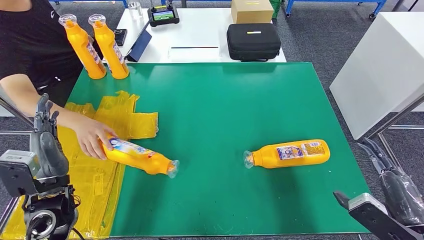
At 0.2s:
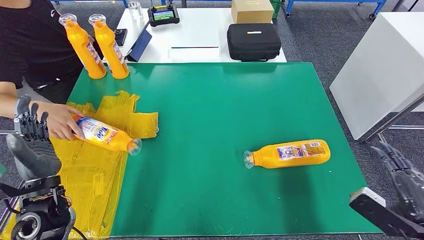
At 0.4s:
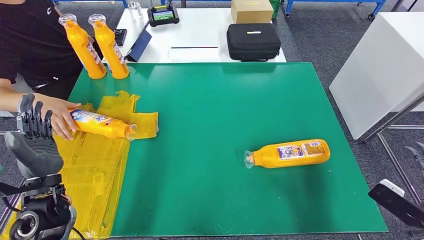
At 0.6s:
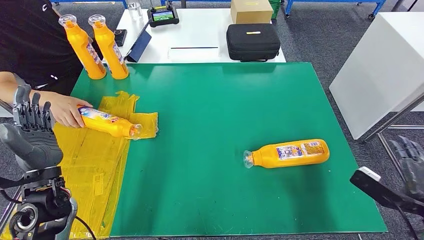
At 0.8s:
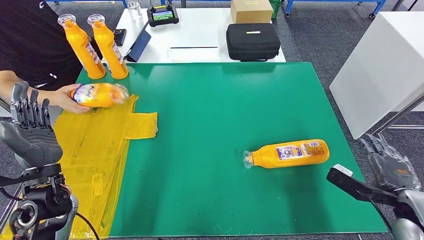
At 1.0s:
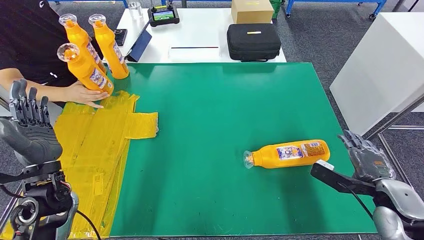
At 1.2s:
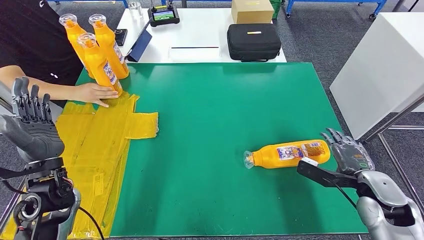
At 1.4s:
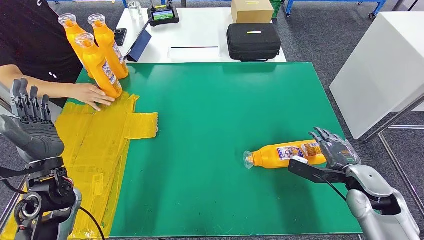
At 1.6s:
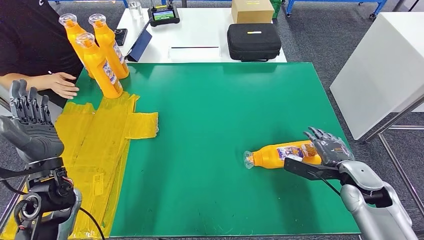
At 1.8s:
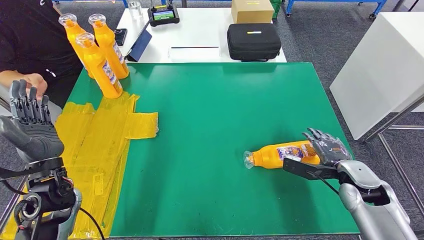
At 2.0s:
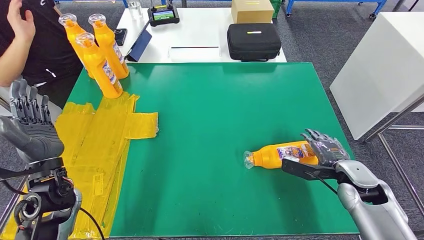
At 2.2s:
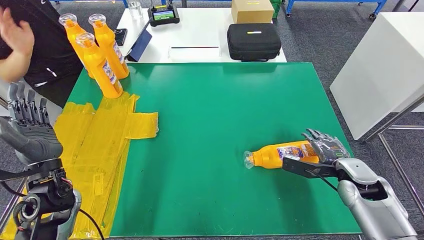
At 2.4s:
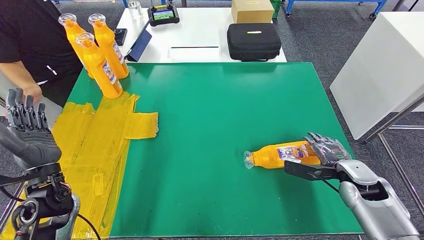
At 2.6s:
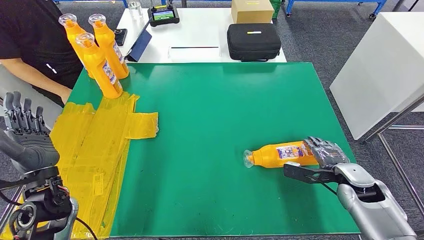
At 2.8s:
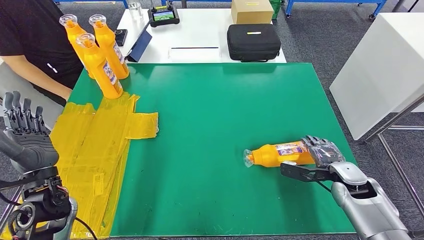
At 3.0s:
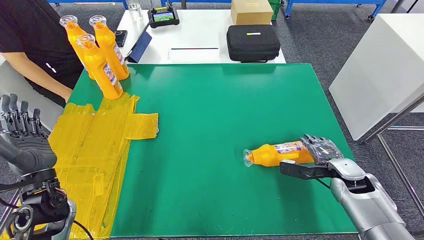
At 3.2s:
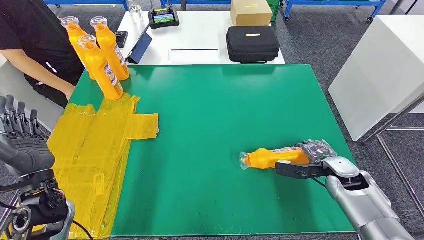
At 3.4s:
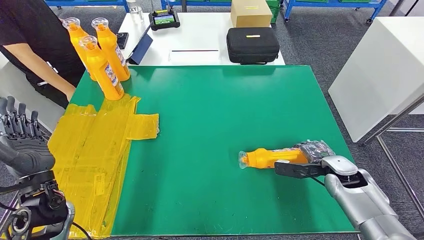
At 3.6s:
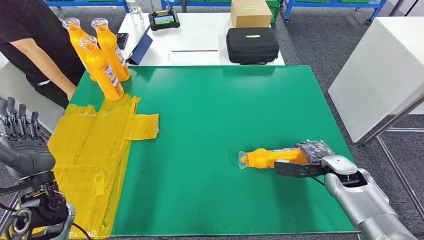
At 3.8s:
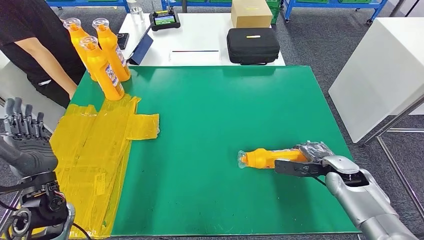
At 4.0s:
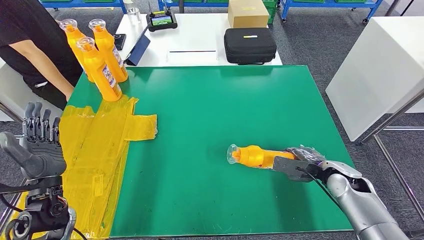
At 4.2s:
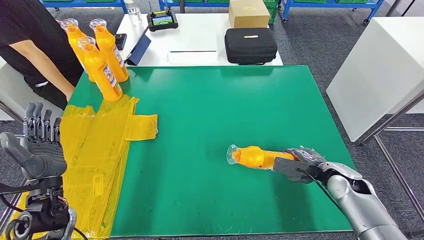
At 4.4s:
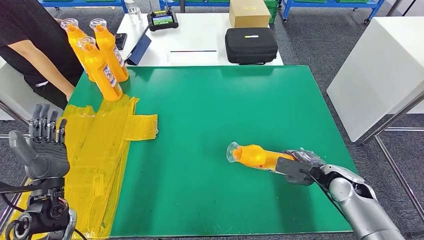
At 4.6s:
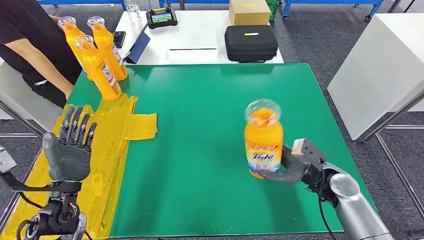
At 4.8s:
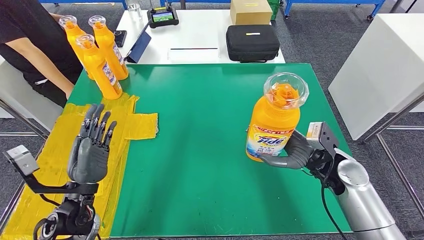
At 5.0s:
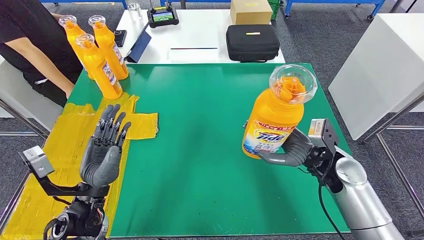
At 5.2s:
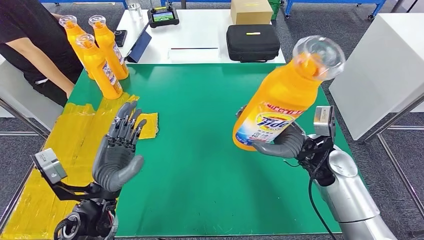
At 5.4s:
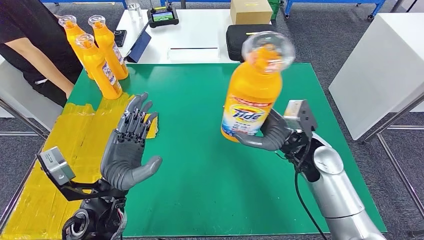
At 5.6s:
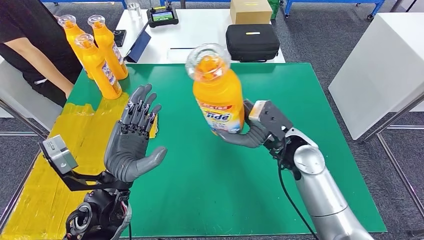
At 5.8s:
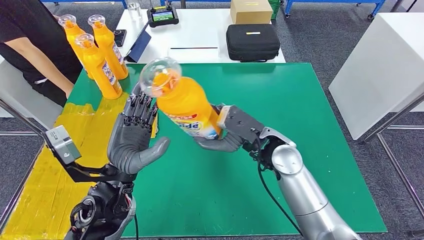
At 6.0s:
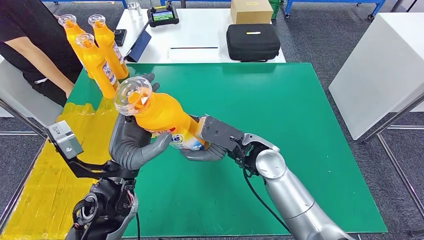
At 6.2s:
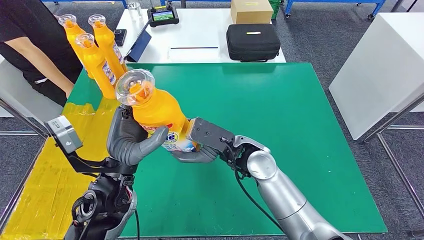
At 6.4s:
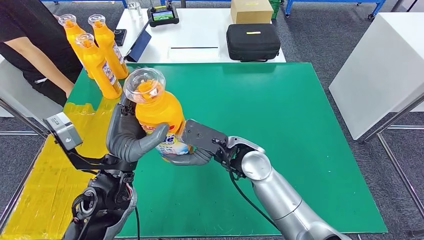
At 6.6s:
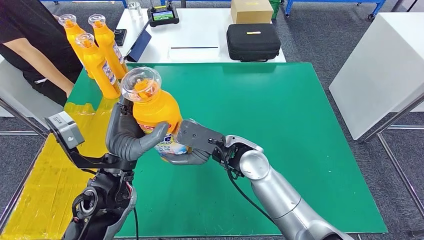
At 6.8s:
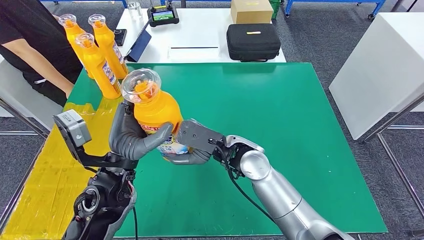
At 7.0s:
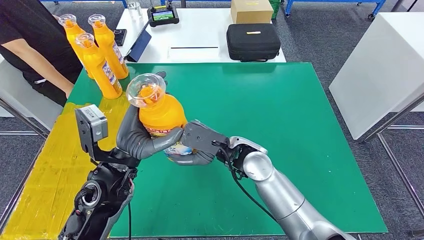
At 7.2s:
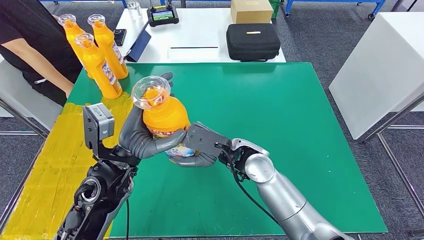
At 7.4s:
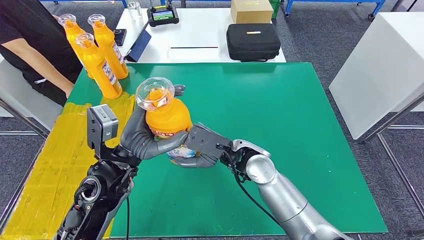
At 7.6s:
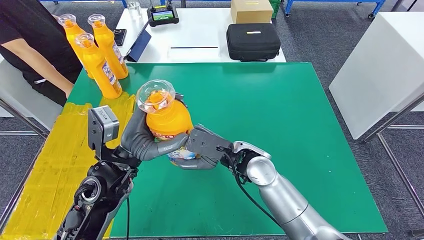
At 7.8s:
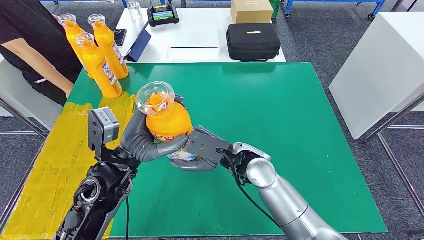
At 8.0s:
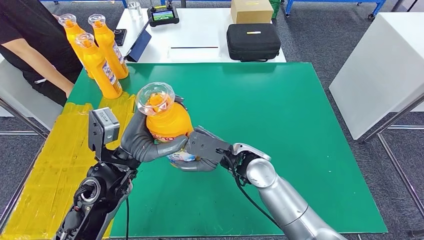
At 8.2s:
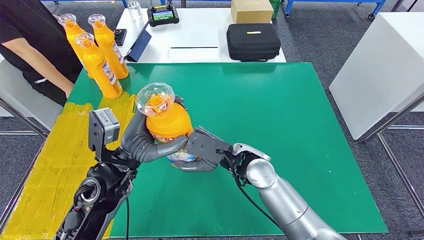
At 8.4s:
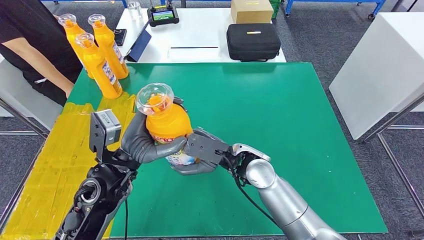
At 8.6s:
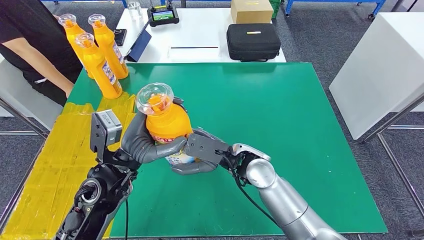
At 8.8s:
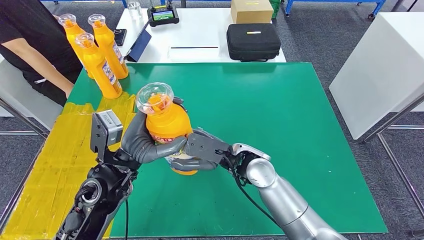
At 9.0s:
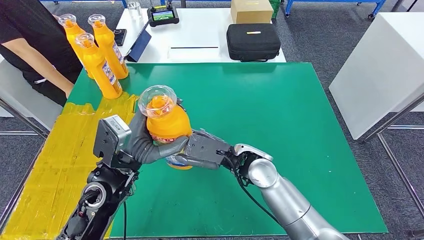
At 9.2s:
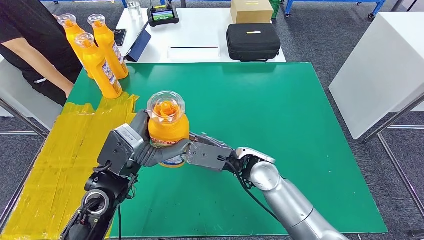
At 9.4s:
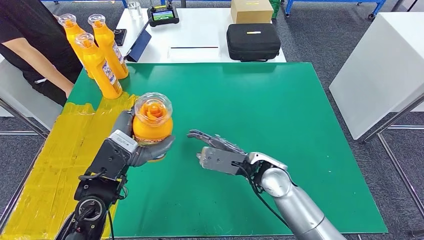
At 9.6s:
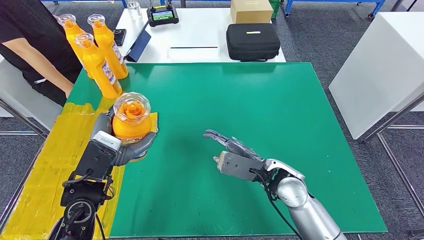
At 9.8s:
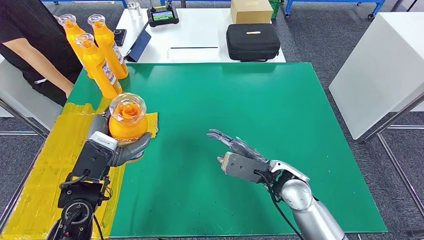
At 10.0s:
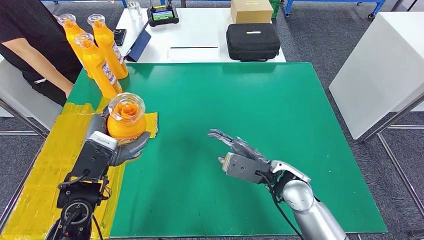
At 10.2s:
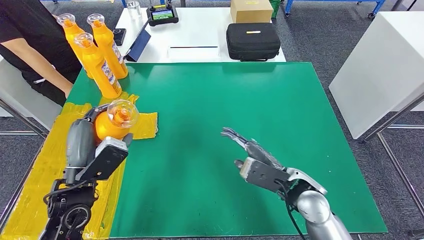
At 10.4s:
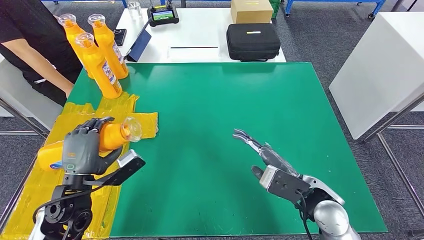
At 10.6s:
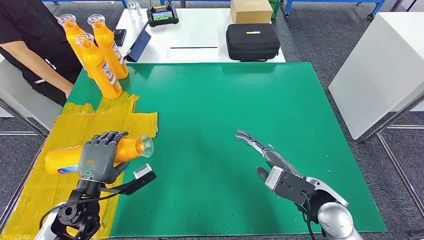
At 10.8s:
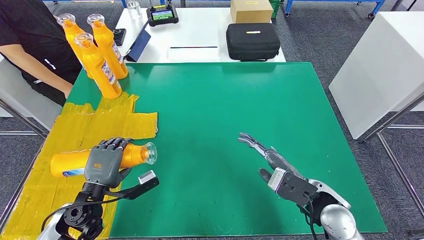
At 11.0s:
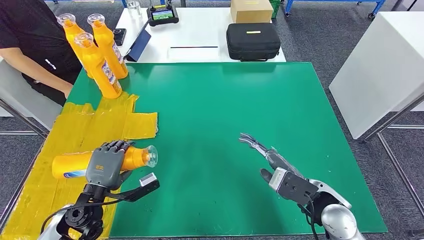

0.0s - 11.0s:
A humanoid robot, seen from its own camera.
Step, 0.0s - 6.0s: Pick up the fast-moving consumer goods bottle from the table.
Step, 6.6s - 10.8s: Flip the fast-moving consumer goods bottle to the front side.
0.0s - 1.6s: The right hand is displaced forward and downward by some 15 cm.
7.8s - 9.4s: The right hand shifts by about 5 cm.
9.4s - 11.0s: The left hand travels downward and to the left by about 15 cm, while the right hand heads to the right and backward, covering roughly 15 cm.
